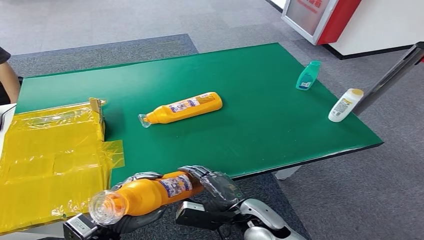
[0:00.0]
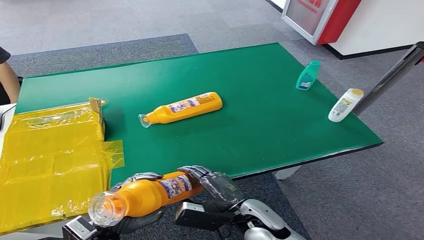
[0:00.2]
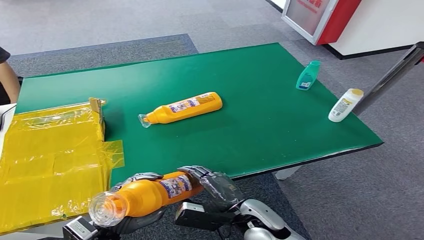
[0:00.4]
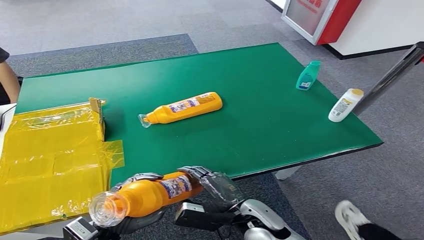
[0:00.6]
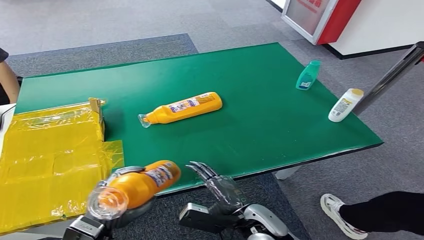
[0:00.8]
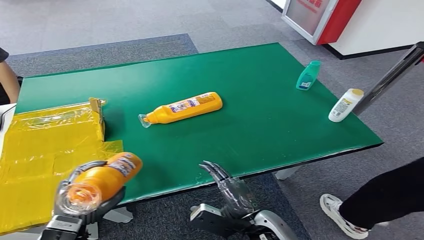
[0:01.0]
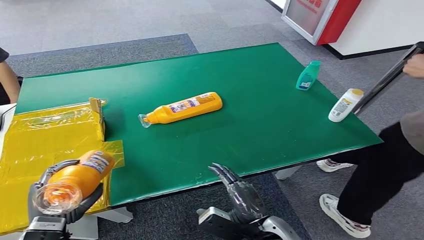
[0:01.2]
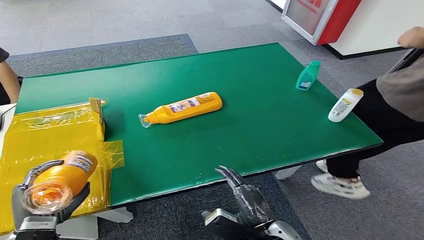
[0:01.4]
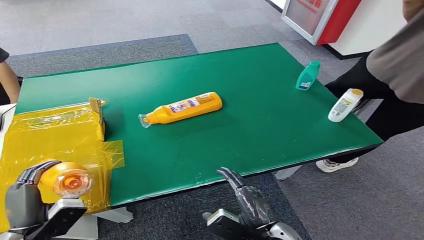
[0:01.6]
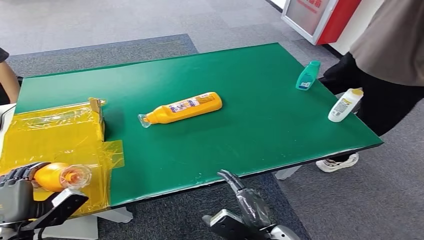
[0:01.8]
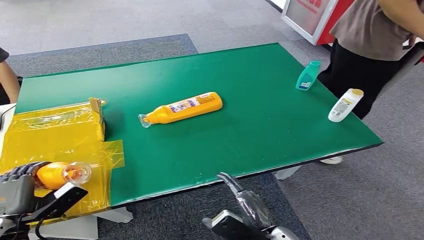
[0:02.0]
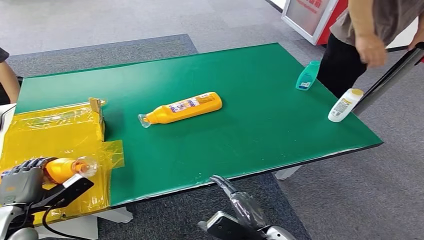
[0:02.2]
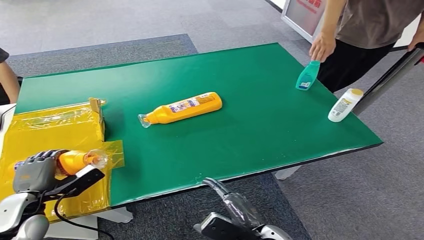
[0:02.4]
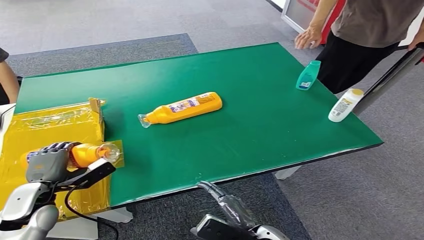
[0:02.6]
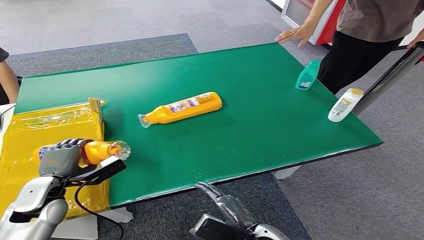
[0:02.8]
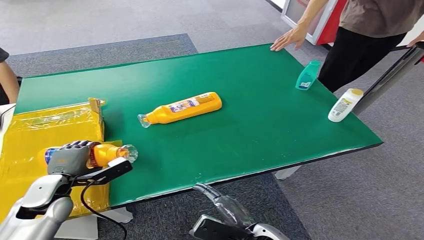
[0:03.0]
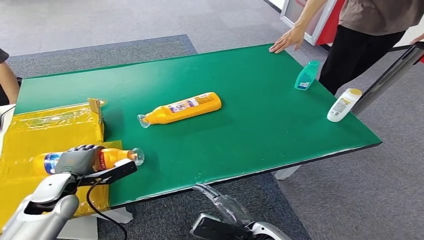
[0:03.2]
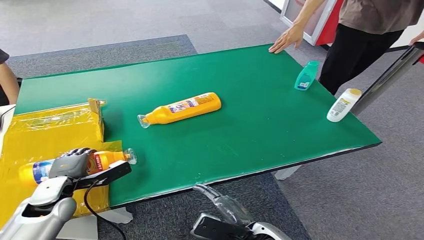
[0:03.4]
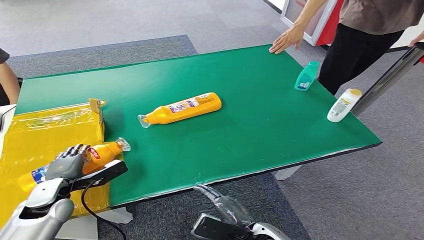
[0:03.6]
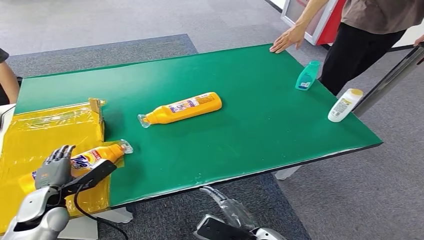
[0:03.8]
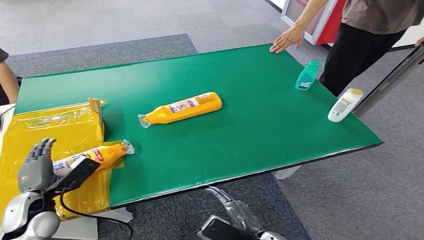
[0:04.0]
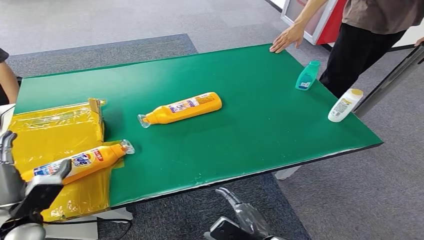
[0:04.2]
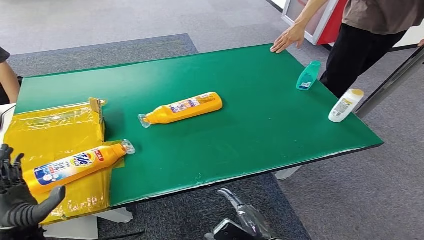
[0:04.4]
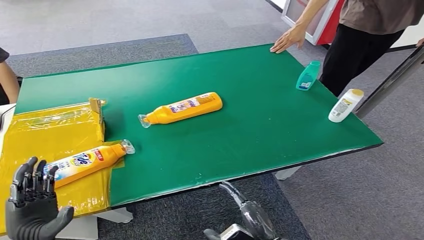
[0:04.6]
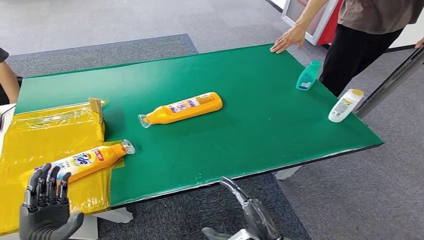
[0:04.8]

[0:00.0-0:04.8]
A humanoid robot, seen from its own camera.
Step, 0:00.0 to 0:04.8: Turn the bottle to the front side.
0:00.0 to 0:01.6: The left hand goes roughly 10 cm to the left. Meanwhile the right hand moves backward, about 5 cm.
0:03.2 to 0:04.8: The left hand heads backward, covering about 15 cm, while the right hand shifts by roughly 5 cm.
